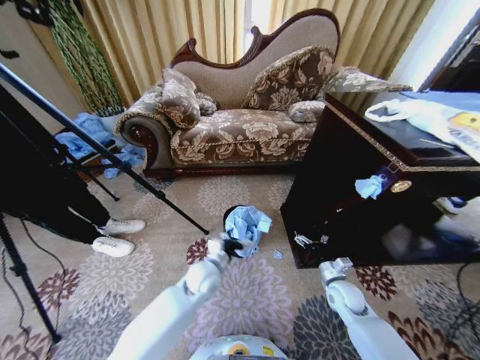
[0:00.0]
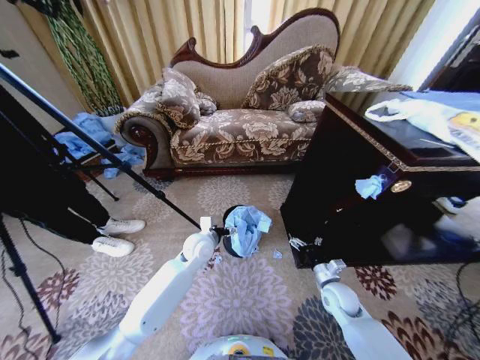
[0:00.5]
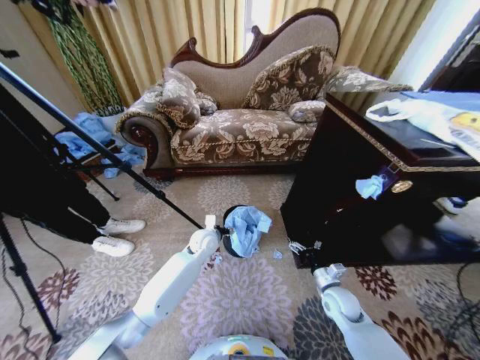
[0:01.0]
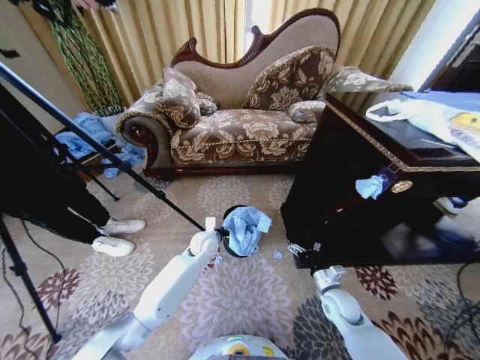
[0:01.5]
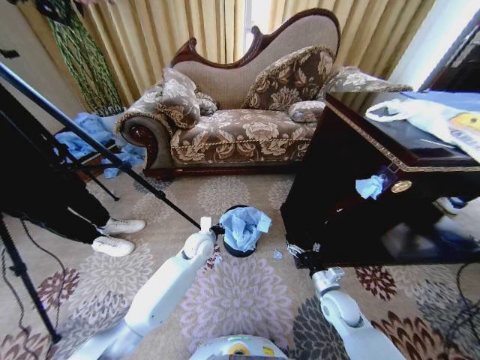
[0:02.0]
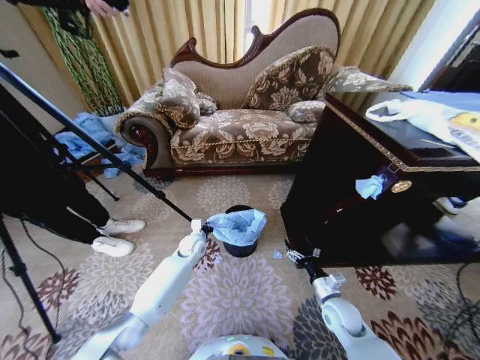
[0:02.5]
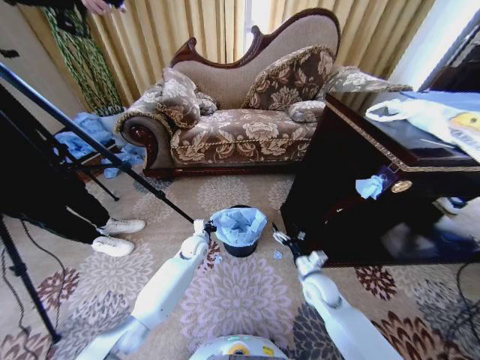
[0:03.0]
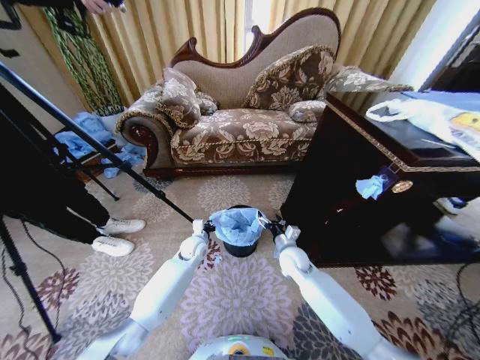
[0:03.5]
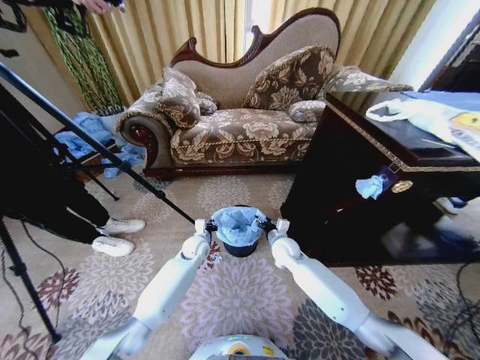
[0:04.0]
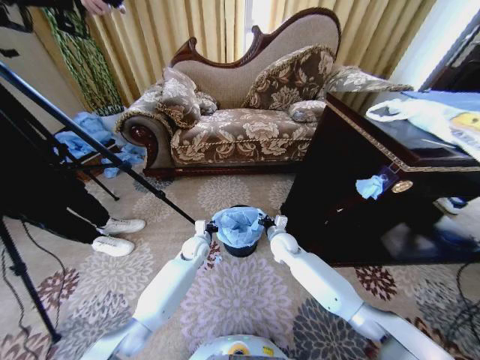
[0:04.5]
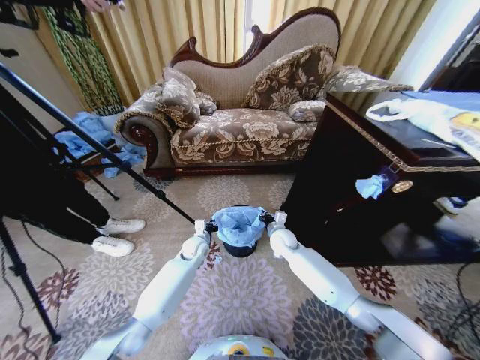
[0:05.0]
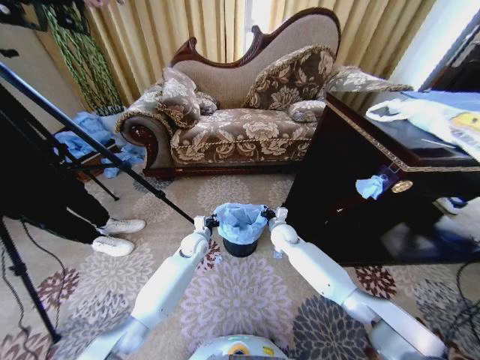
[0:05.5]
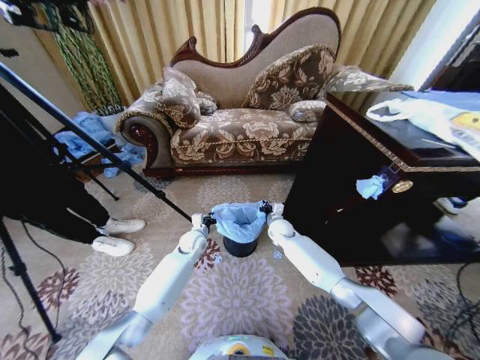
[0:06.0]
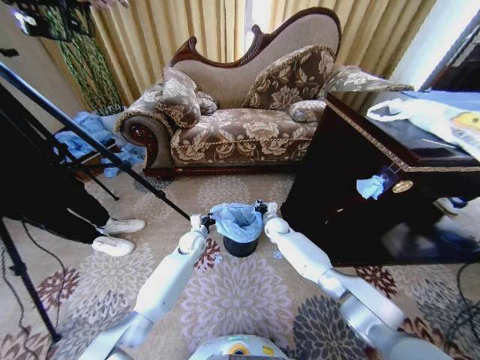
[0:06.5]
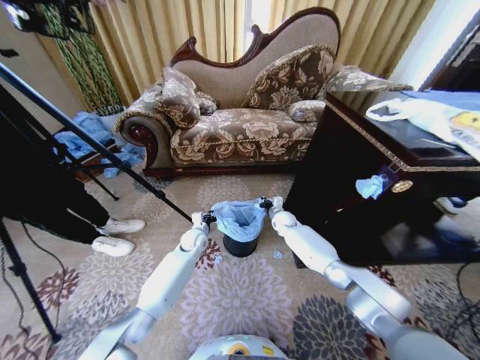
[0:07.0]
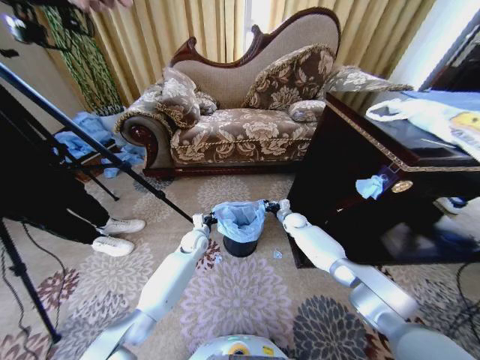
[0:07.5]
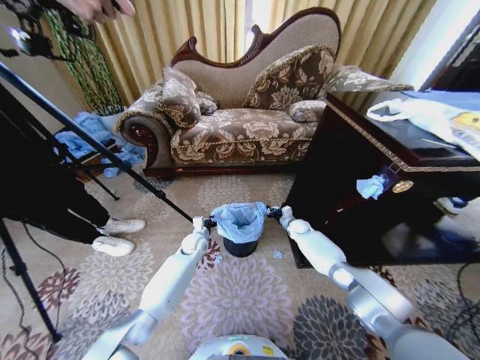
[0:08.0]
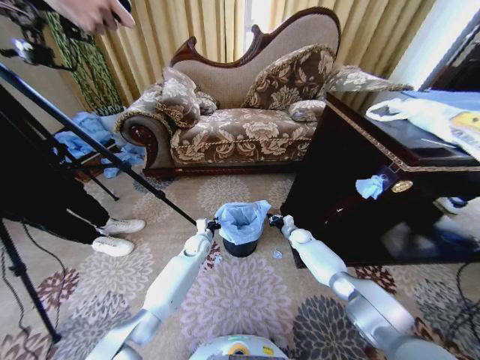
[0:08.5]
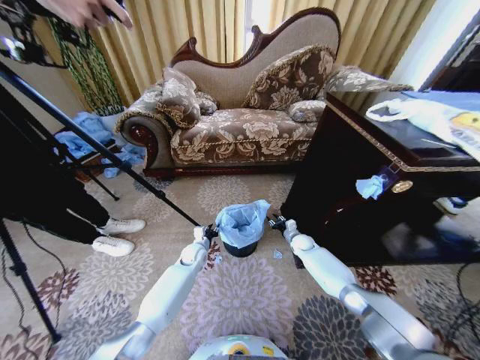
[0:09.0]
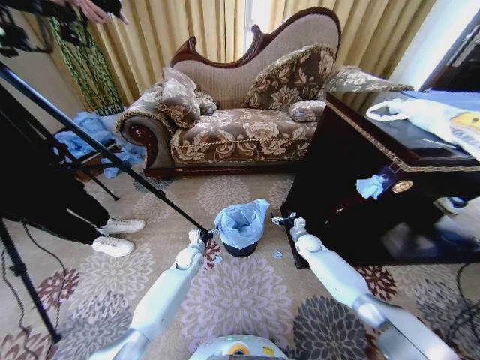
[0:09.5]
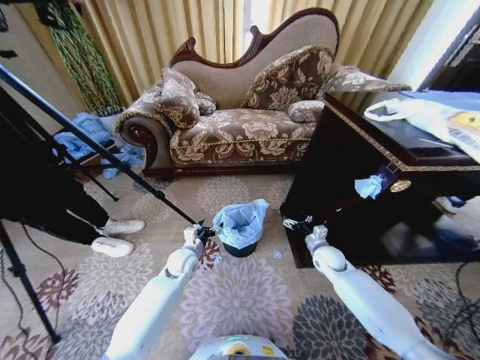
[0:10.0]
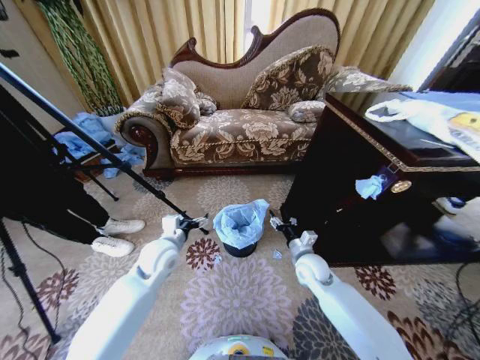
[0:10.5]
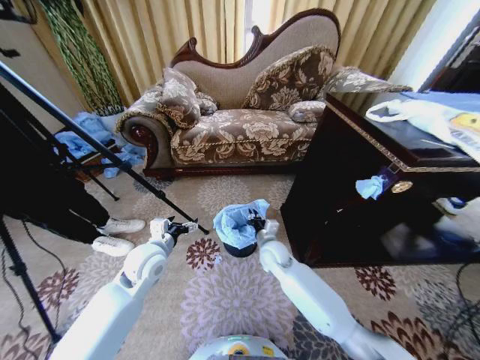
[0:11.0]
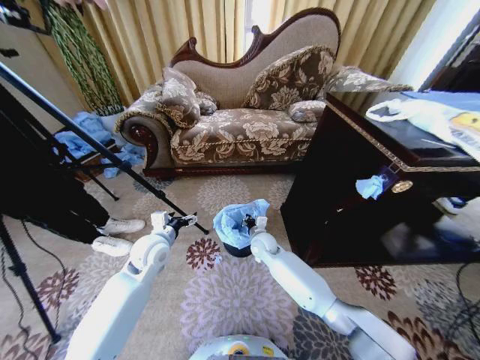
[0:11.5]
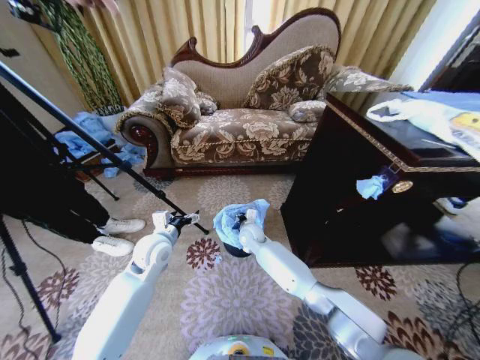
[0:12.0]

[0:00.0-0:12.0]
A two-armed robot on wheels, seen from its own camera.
Task of the whole recording: Place a garbage bag over the trash bin.
0:00.0 to 0:02.0: The left gripper shifts roughly 10 cm forward, and closes.
0:02.0 to 0:04.0: The left gripper heads downward, covering roughly 5 cm, while the right gripper shifts some 20 cm forward, to the left and upward, and closes up.
0:04.0 to 0:06.0: The right gripper travels forward by about 10 cm, and closes its fingers.
0:06.0 to 0:08.0: The right gripper shifts some 15 cm to the right, downward and forward.
0:08.0 to 0:10.0: The left gripper is displaced backward by about 10 cm, and opens, while the right gripper heads backward, covering roughly 15 cm, and opens its fingers.
0:10.0 to 0:12.0: The left gripper is displaced upward and to the left by about 15 cm. Meanwhile the right gripper travels to the left by about 30 cm, and closes its fingers.

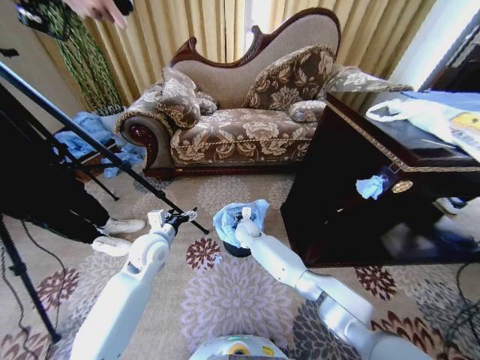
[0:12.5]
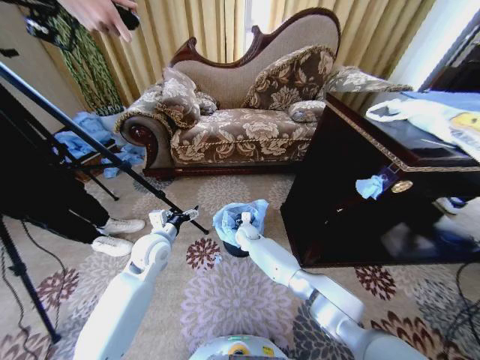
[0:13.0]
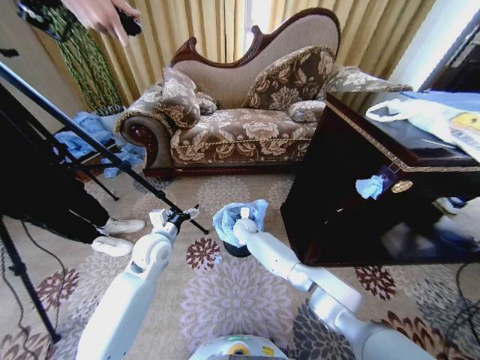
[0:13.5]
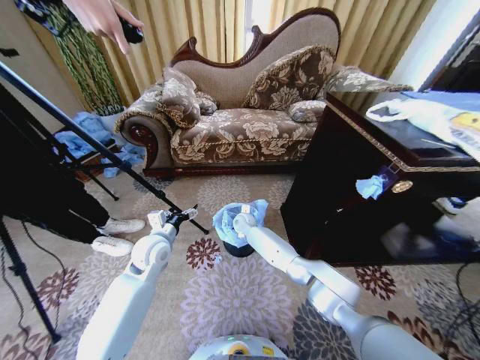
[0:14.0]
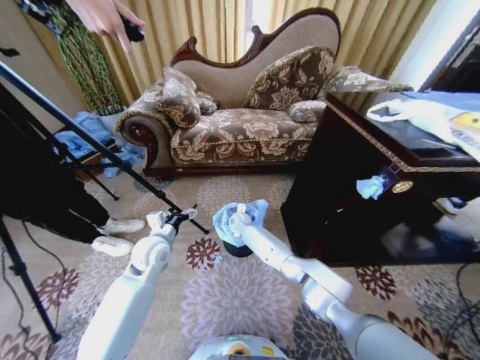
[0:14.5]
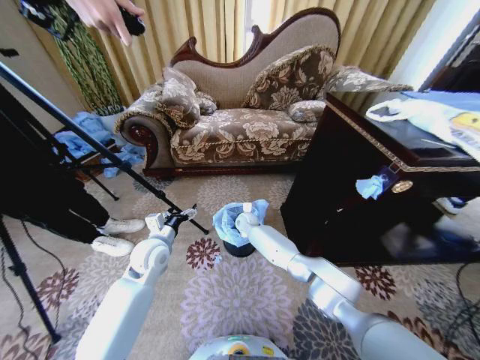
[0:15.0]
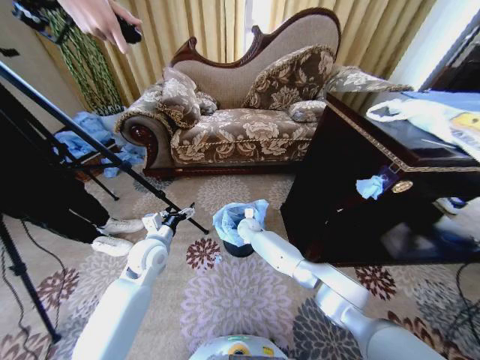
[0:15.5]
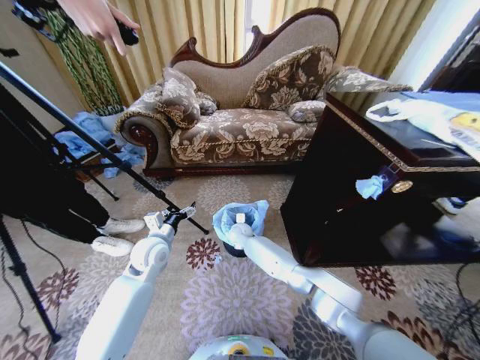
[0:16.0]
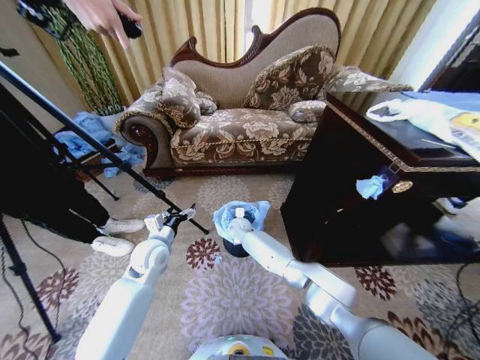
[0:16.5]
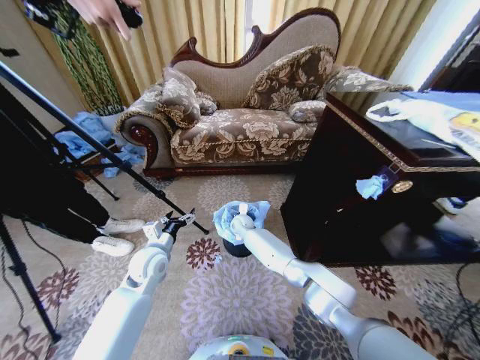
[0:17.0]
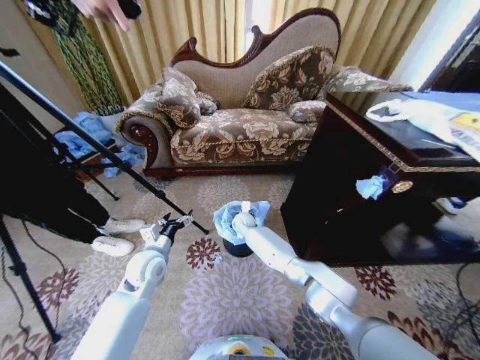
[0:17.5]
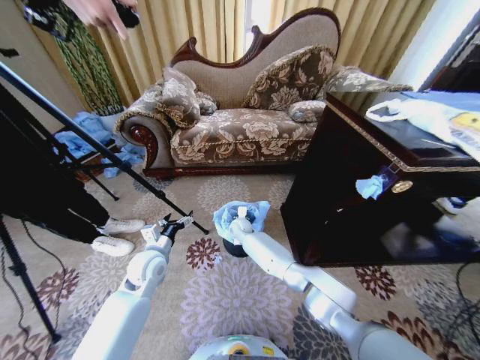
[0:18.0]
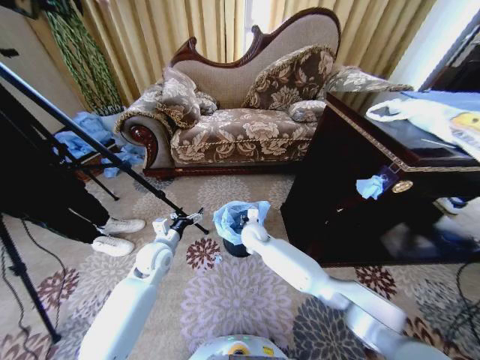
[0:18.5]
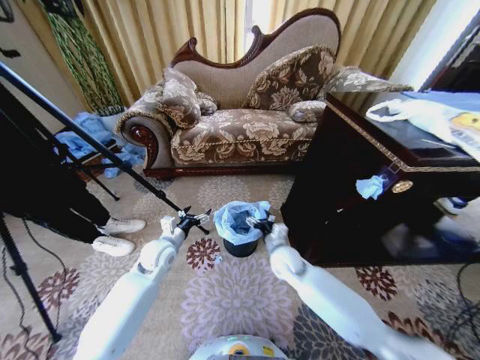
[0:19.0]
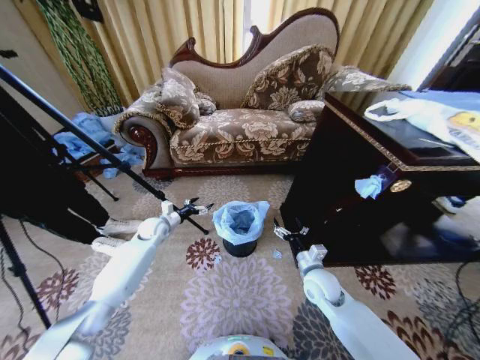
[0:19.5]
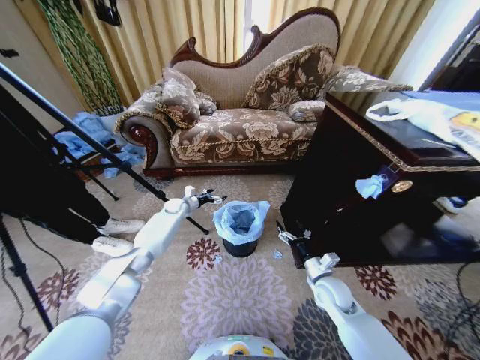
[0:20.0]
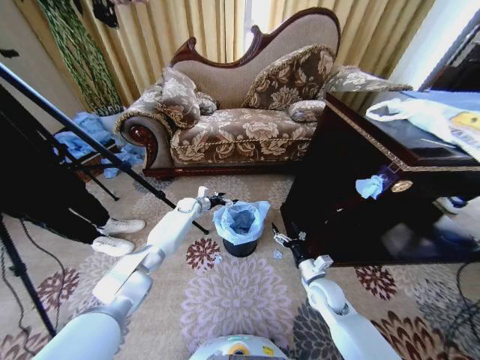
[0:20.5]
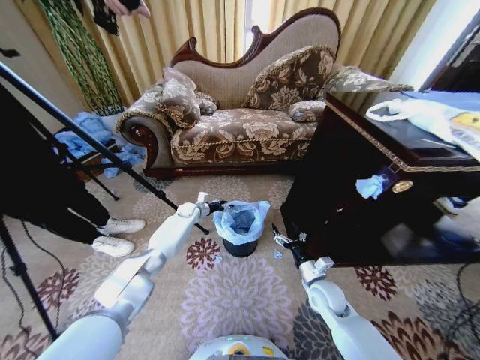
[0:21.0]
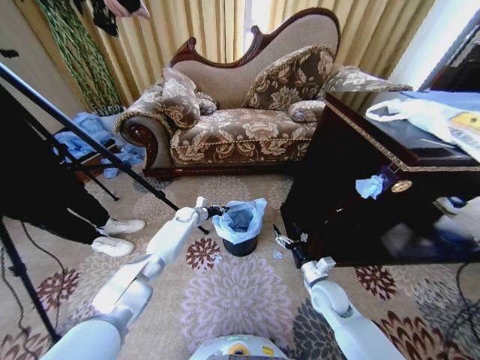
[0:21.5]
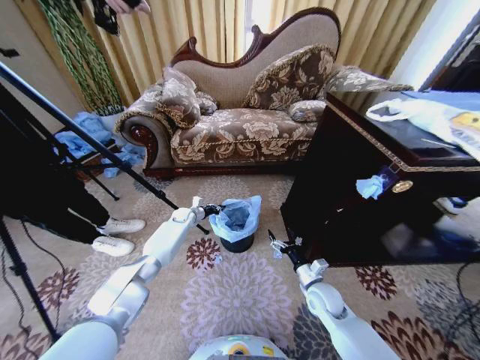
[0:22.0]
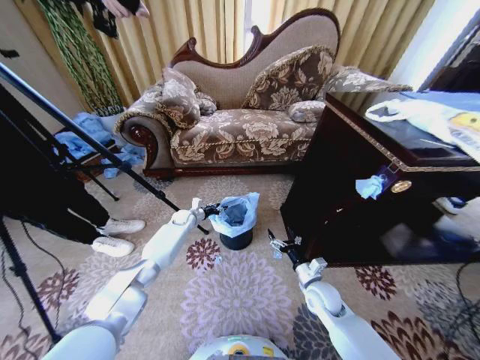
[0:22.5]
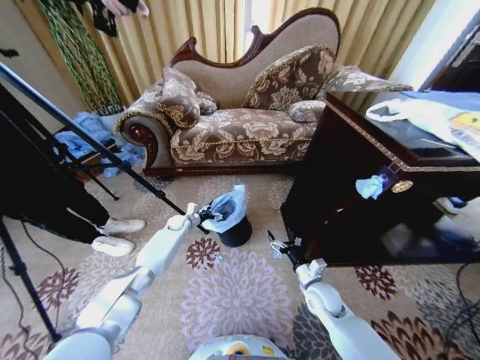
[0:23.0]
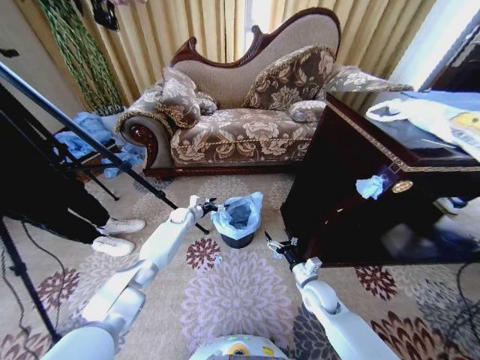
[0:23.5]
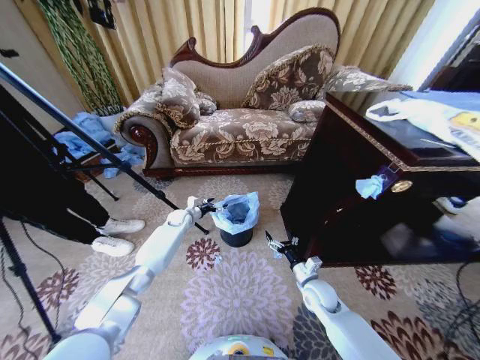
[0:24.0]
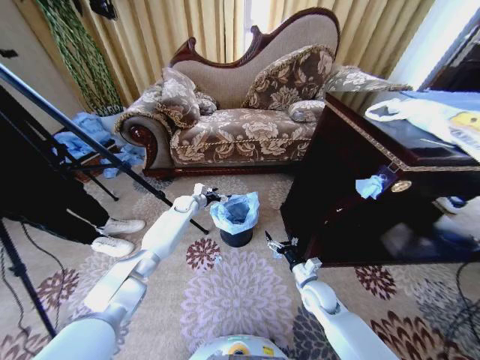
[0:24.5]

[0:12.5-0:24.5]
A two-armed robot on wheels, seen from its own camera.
Task of the whole recording: Place a garbage bag over the trash bin.
0:12.5 to 0:14.5: The right gripper changes place by roughly 5 cm.
0:14.5 to 0:16.5: The grippers make only small movements.
0:16.5 to 0:18.5: The right gripper travels backward by approximately 5 cm.
0:18.5 to 0:20.5: The left gripper is displaced forward by roughly 25 cm, while the right gripper shifts some 30 cm to the right and backward, and opens up.
0:20.5 to 0:22.5: The left gripper ends up some 5 cm from where it was, and closes.
0:22.5 to 0:24.5: The left gripper travels upward by about 5 cm, and opens.

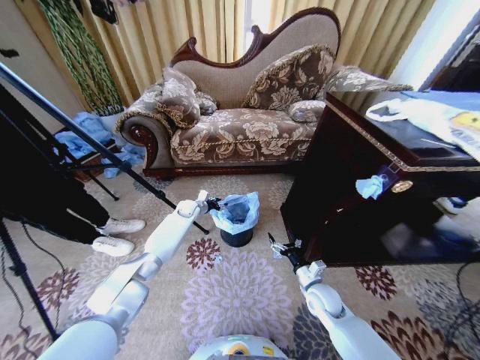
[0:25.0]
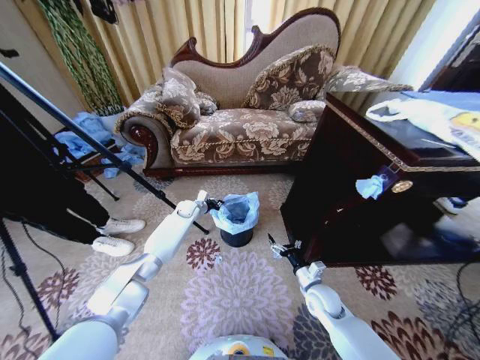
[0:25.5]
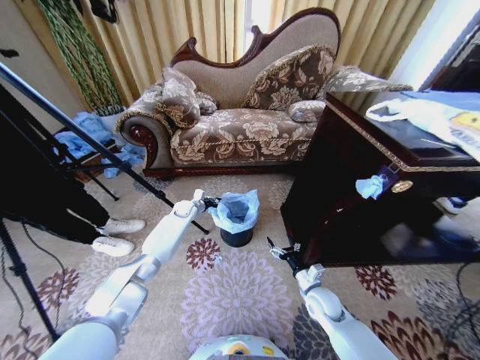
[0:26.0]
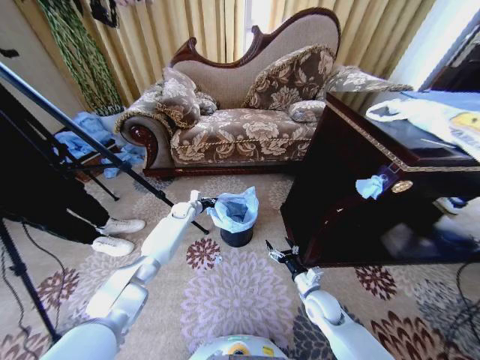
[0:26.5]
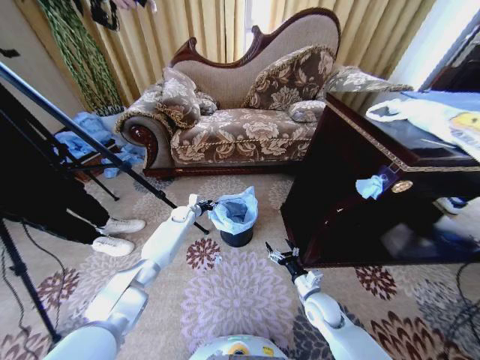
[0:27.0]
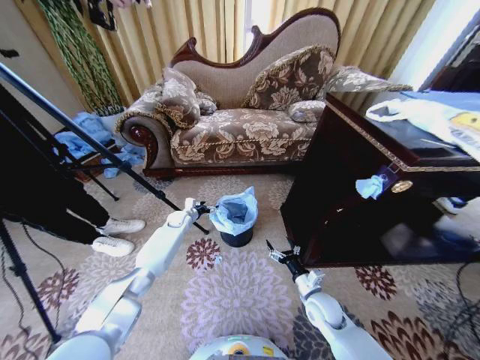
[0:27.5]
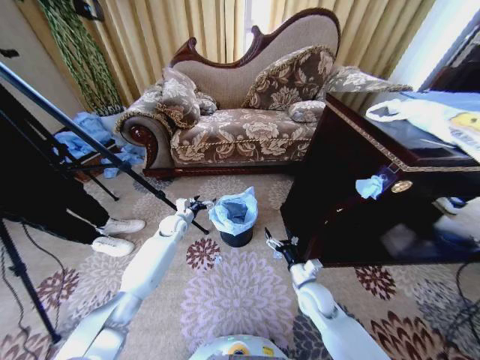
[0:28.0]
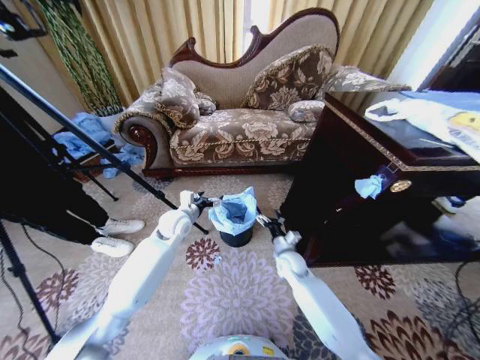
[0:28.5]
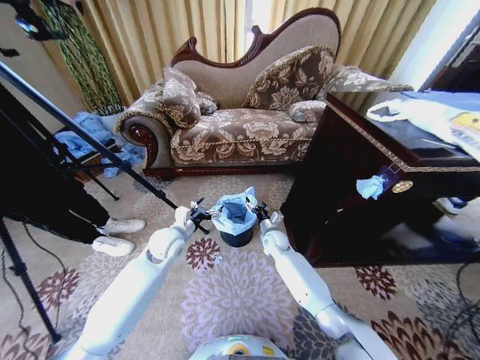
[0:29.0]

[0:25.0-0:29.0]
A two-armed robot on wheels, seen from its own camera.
Task of the whole recording: Place a garbage bag over the trash bin.
0:25.0 to 0:27.0: The grippers move only a little.
0:27.0 to 0:29.0: The left gripper shifts about 25 cm backward and upward, and opens up, while the right gripper shifts some 25 cm forward and to the left.
